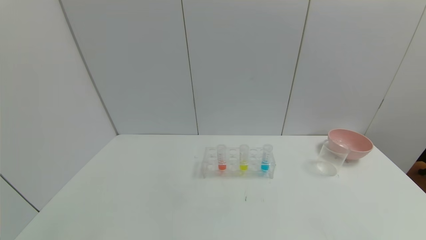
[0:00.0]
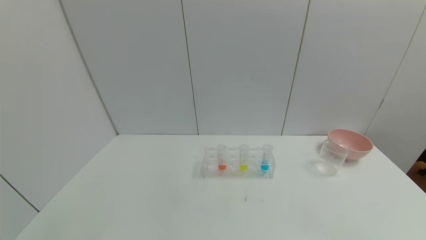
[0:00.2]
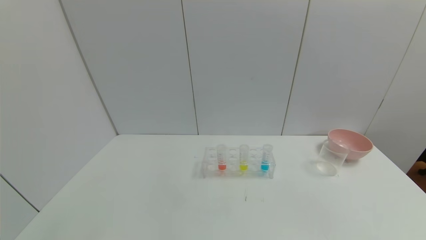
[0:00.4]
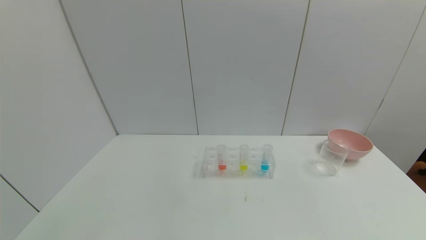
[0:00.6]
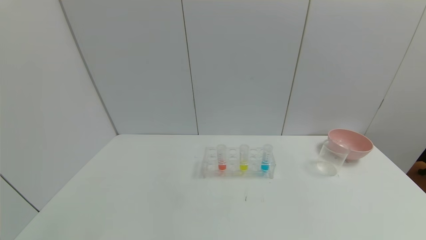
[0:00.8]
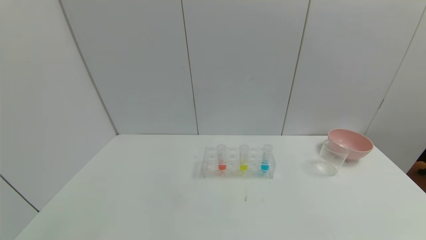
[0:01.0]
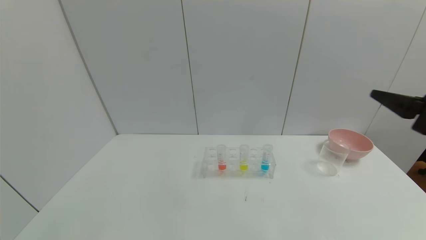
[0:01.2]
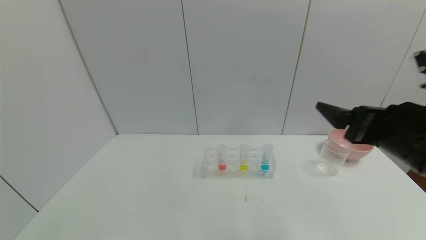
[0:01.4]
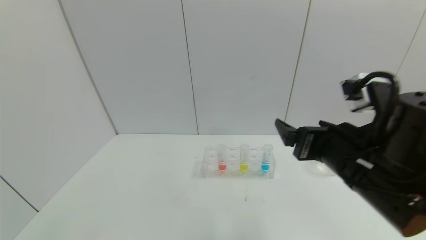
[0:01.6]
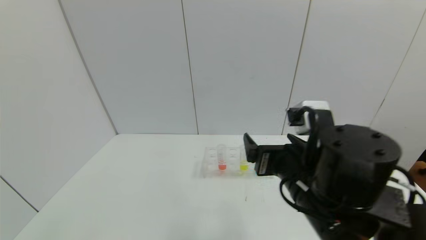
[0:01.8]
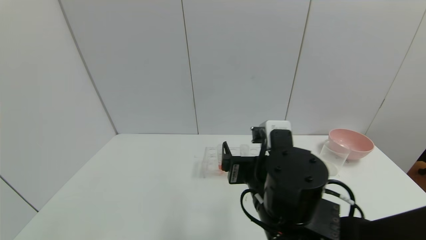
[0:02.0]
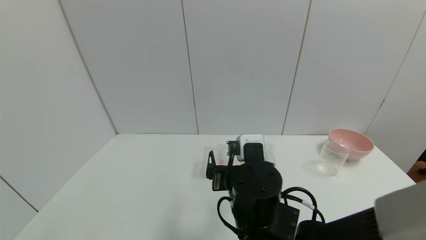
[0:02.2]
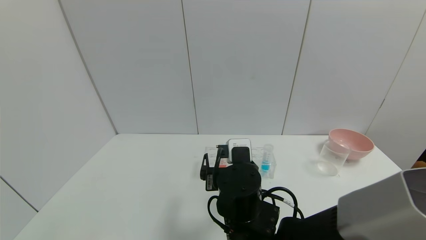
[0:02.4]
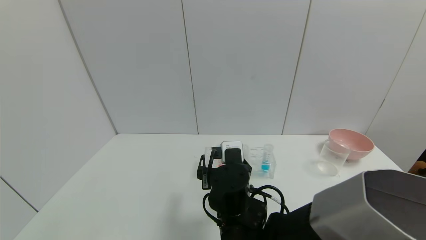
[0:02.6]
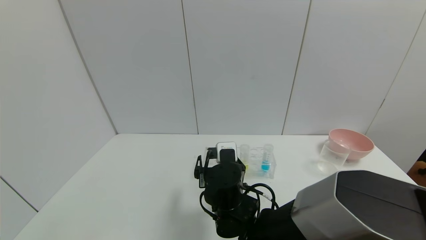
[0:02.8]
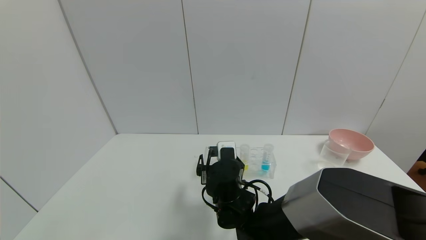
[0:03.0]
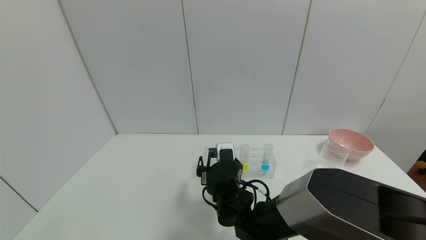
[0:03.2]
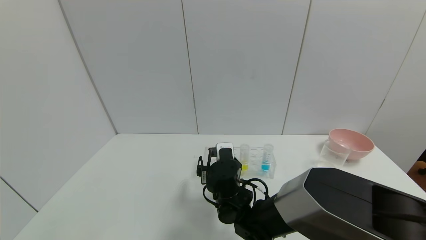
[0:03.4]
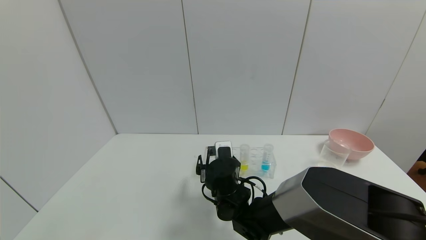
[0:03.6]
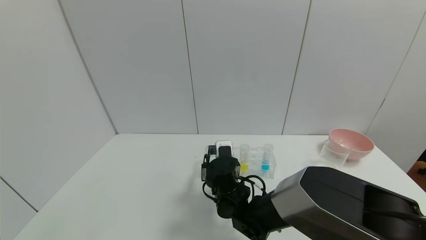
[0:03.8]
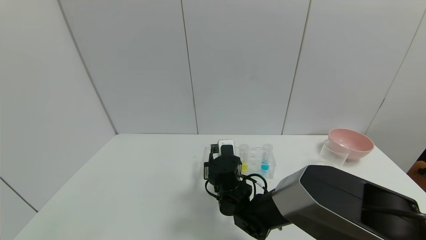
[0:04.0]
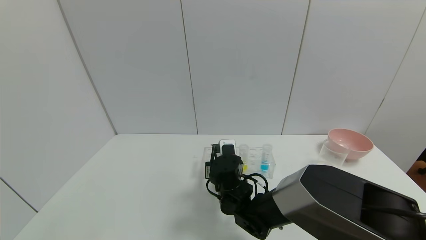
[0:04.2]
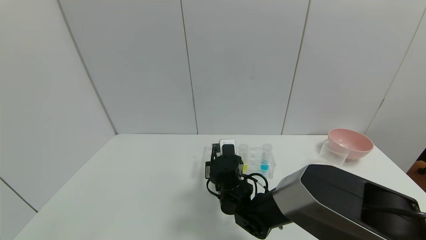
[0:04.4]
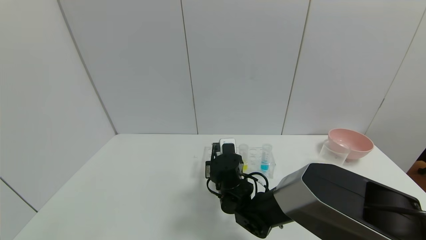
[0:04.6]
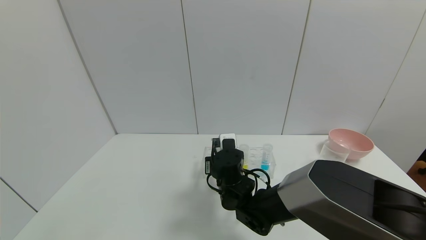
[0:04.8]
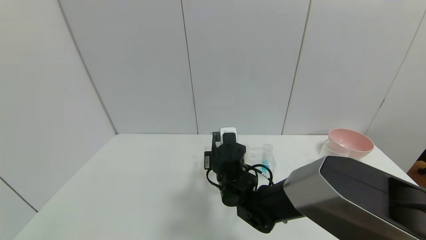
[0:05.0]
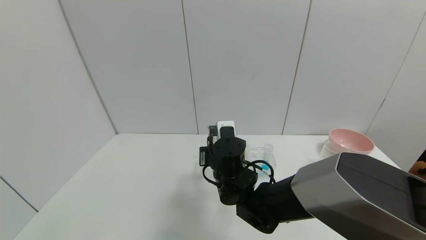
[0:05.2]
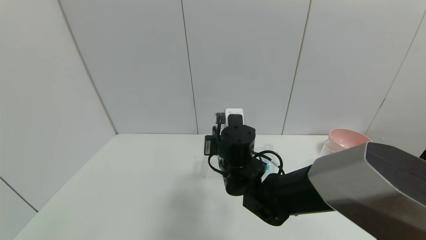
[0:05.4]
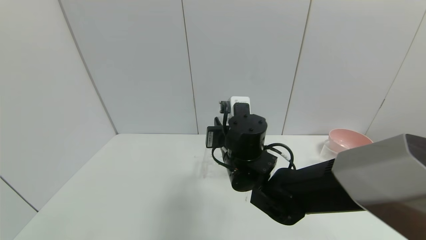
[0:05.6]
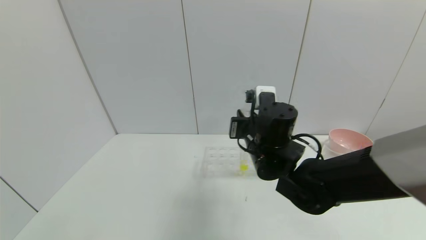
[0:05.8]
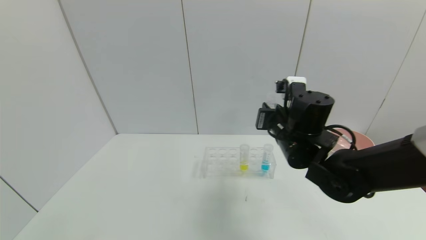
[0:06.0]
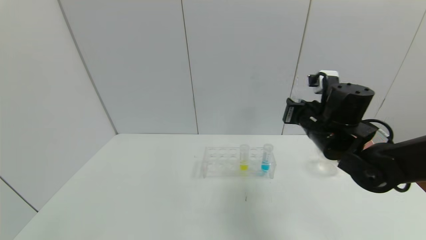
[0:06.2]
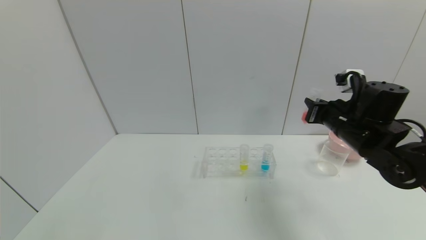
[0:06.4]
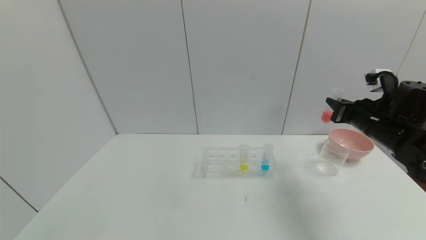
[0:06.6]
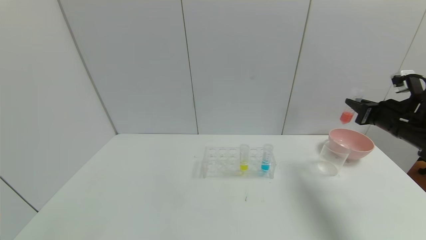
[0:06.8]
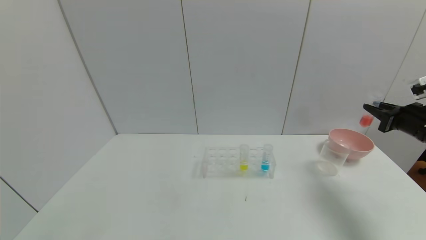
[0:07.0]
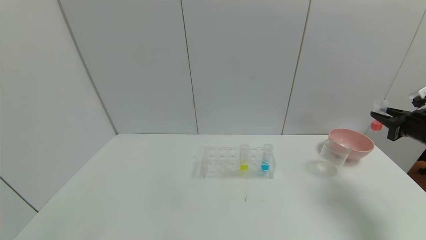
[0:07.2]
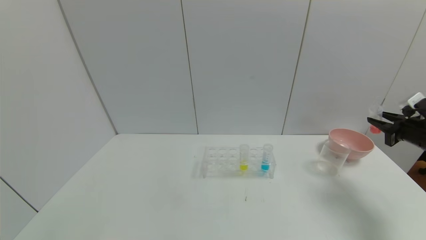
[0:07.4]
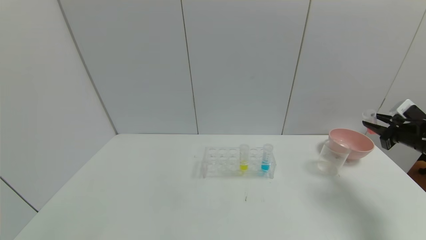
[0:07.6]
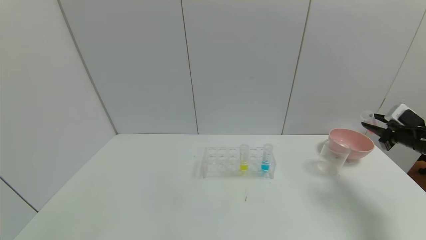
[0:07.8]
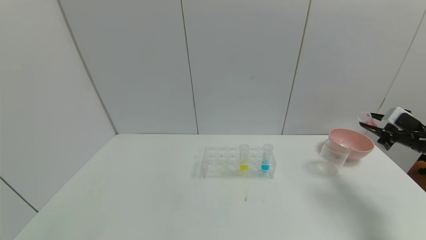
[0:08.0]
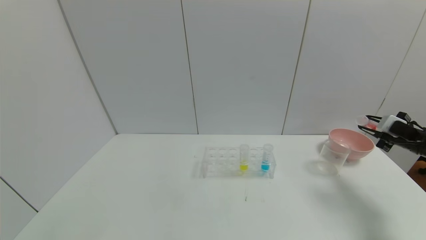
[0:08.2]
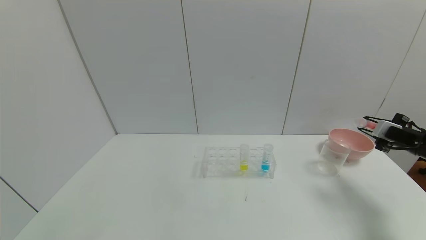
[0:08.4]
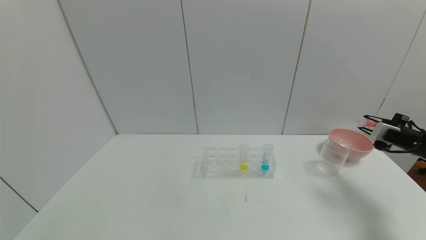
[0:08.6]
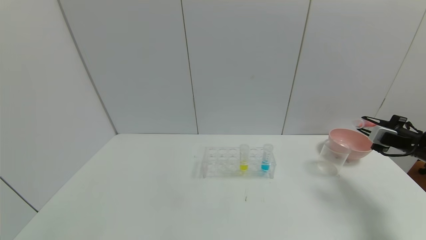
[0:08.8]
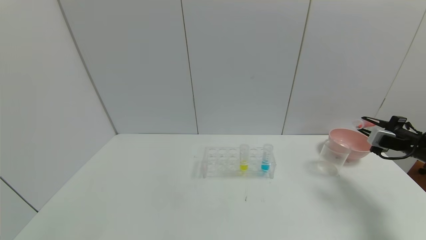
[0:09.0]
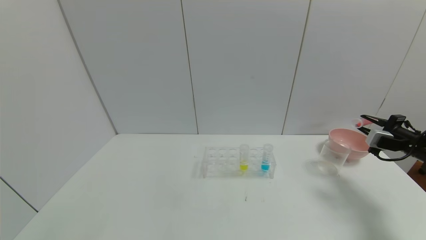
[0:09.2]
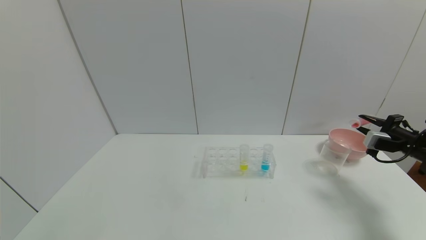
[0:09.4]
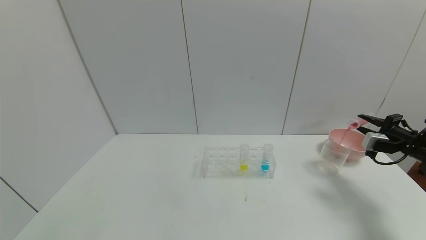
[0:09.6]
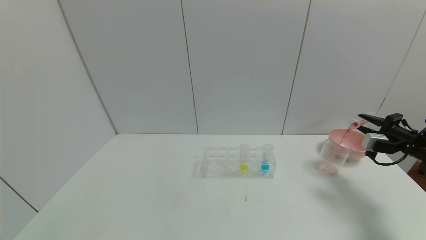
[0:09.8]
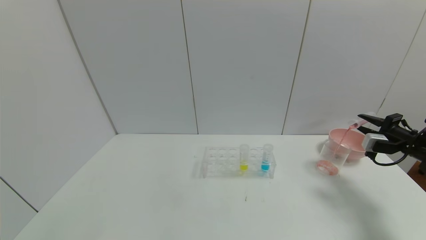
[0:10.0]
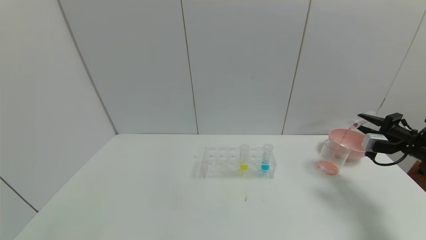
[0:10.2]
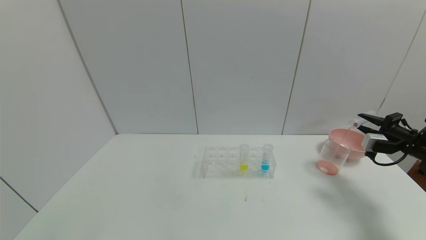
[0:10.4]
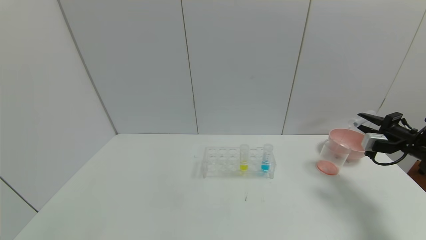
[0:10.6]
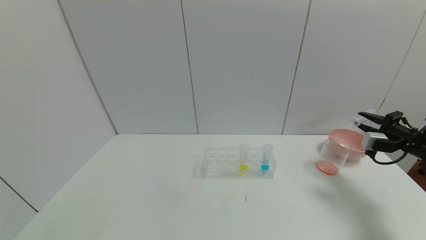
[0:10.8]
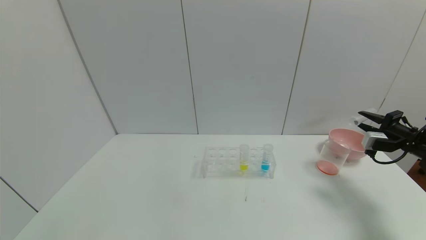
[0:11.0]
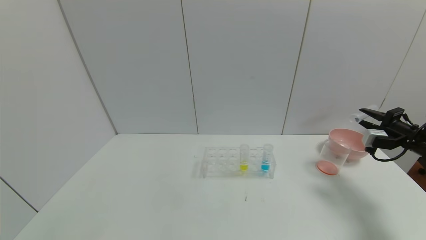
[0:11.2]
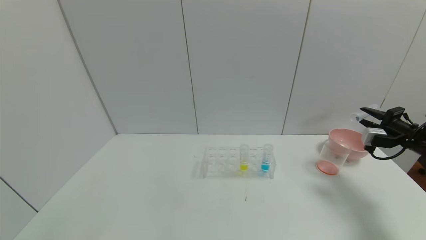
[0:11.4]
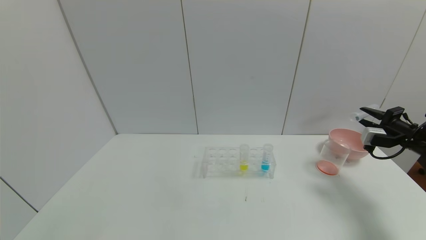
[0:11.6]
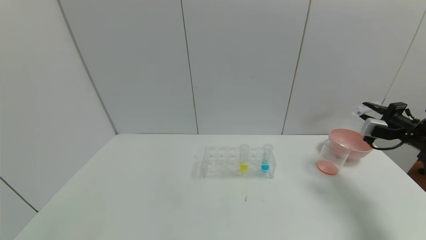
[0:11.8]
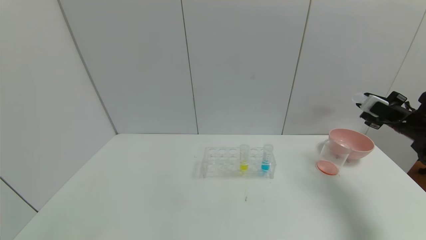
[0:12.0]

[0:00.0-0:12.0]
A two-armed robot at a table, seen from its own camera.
Task of the whole recording: pick up the test tube with yellow pigment and the test tube with red pigment by grippers and pour them into the beaker.
Step, 0:00.0 to 0:06.2: Pick up the test tube containing the red reagent with right gripper.
0:00.0 to 0:01.6: The right gripper is displaced forward, to the left and upward by about 35 cm.
0:01.6 to 0:03.0: The right gripper heads to the left, downward and forward, covering approximately 25 cm.
0:03.0 to 0:04.4: The right gripper closes up.
0:04.4 to 0:06.0: The right gripper travels upward and to the right by some 20 cm.
0:06.0 to 0:07.6: The right gripper heads to the right, covering about 35 cm.
0:09.0 to 0:10.4: There are only small adjustments of the grippers.
0:10.4 to 0:12.0: The right gripper changes place by roughly 5 cm.

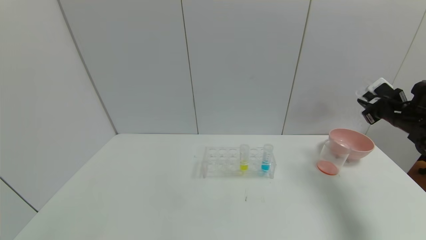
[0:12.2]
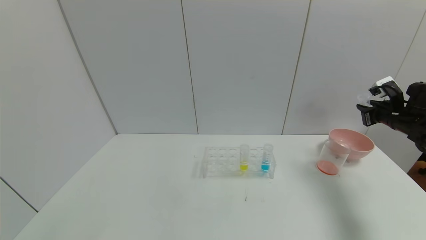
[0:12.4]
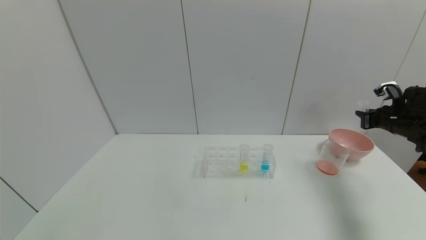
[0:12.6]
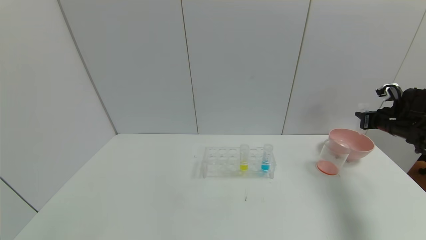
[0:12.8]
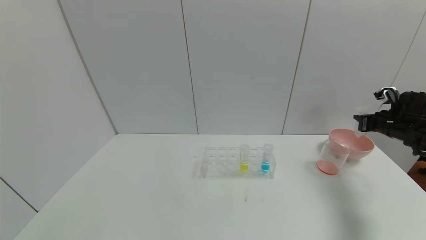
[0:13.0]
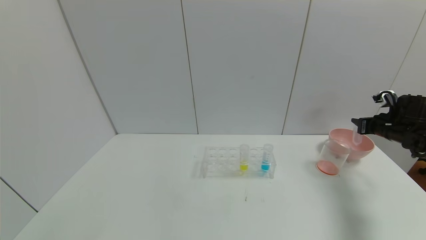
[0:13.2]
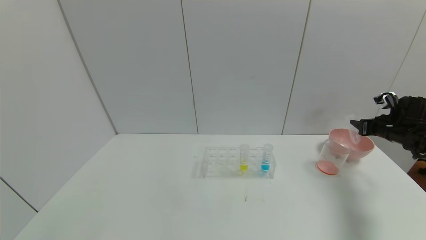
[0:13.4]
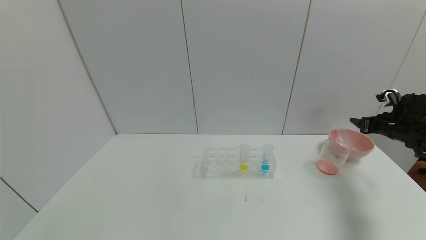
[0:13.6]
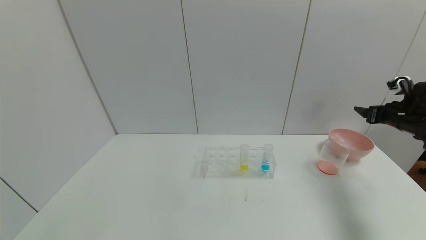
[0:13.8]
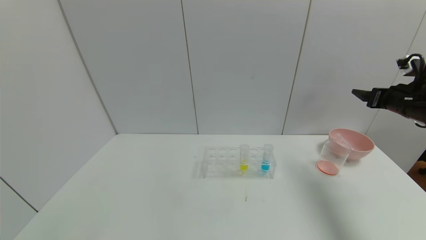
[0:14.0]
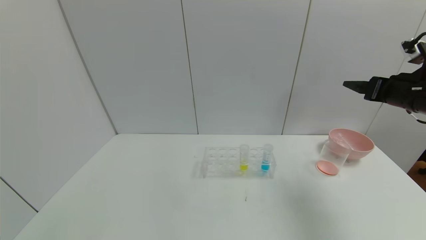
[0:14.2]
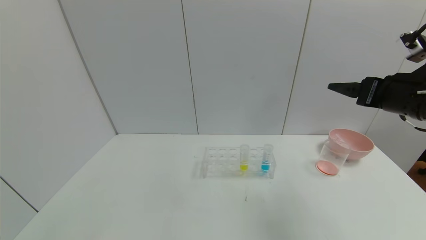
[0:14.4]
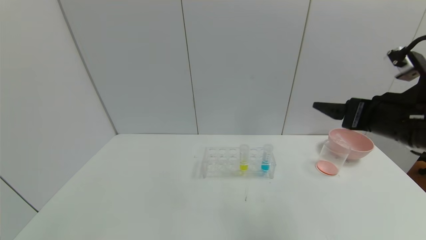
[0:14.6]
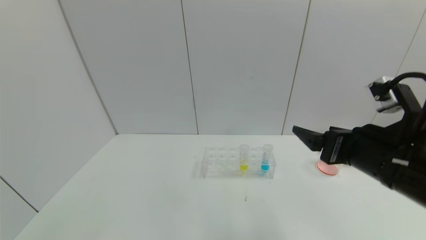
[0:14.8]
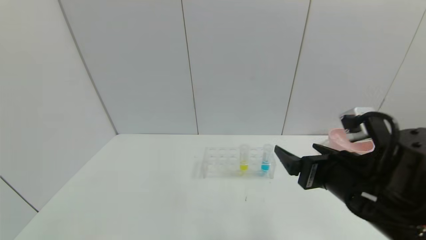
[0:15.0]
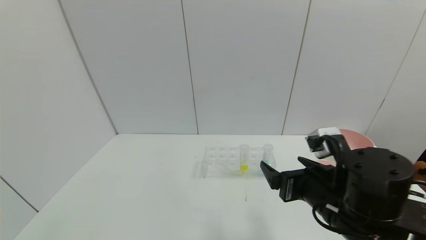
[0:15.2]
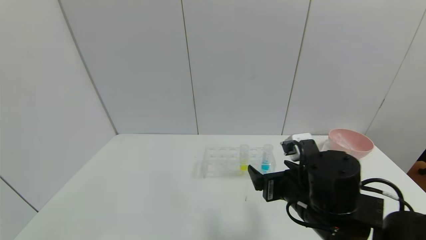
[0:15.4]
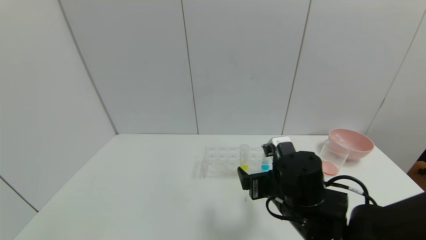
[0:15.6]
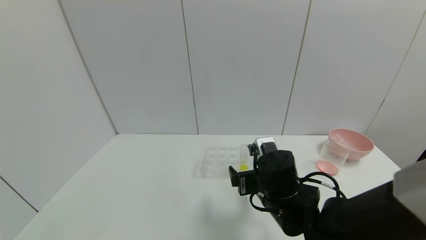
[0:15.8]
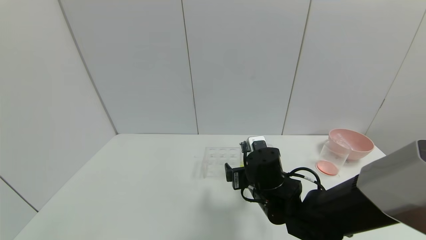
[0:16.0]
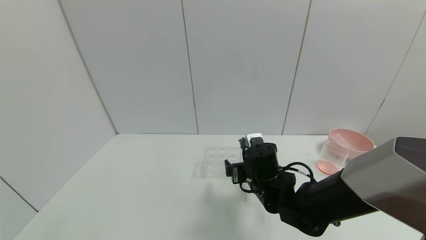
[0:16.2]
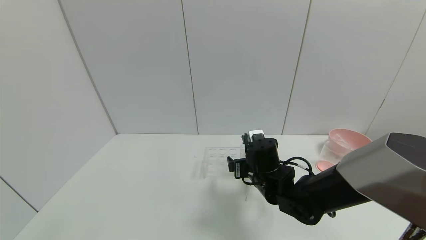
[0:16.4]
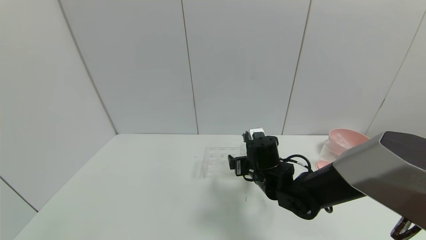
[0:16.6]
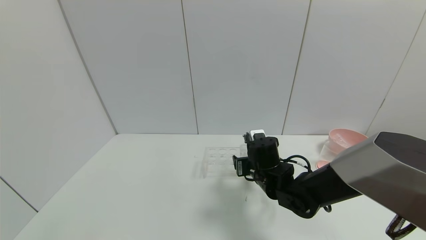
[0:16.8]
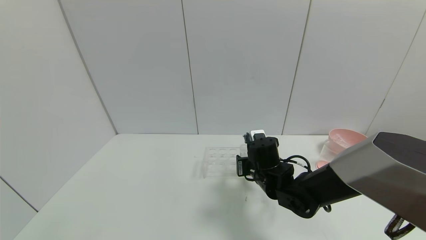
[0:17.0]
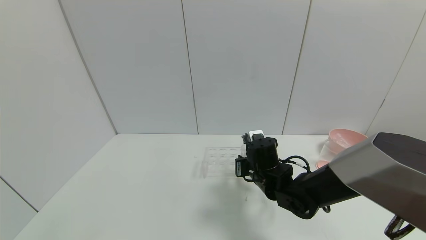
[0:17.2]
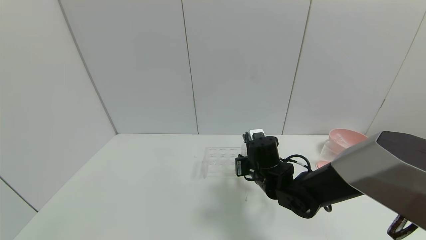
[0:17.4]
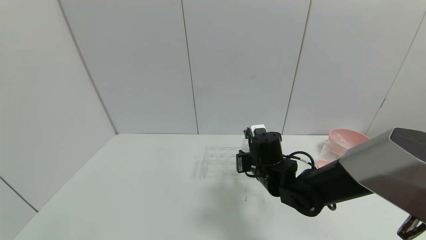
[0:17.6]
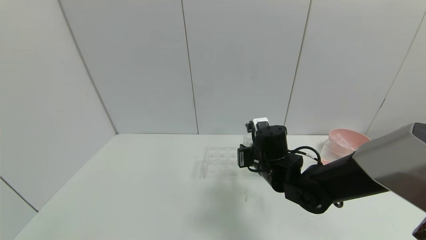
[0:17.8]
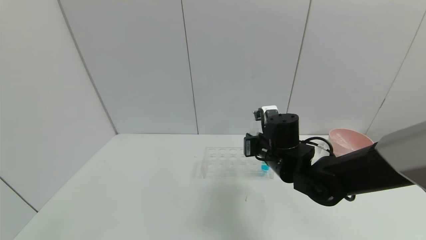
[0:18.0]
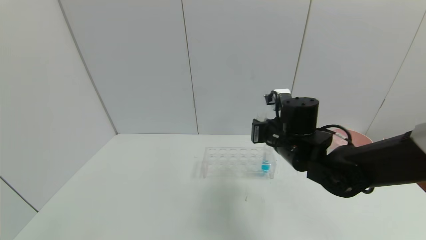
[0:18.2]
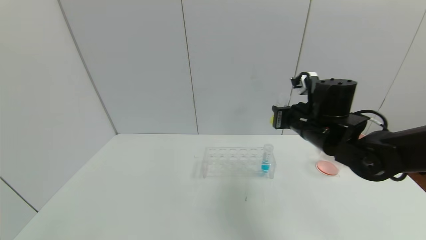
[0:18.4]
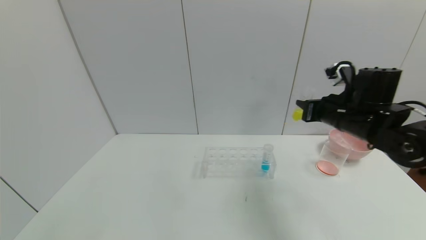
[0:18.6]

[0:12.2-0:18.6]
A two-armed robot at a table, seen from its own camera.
Task of the whole recording: pick up the test tube with yellow pigment and the test tube with red pigment by grippers and pour them into the beaker.
Step, 0:13.2 to 0:14.8: Place the test tube into the bowl with right gripper.
0:12.2 to 0:13.8: The right gripper opens.
0:13.8 to 0:15.4: The right gripper shifts approximately 35 cm to the left and backward.
0:15.4 to 0:17.0: The right gripper is displaced forward and downward by roughly 15 cm, and closes up.
0:17.0 to 0:18.6: The right gripper heads to the right and upward, covering approximately 20 cm, and closes its fingers.
